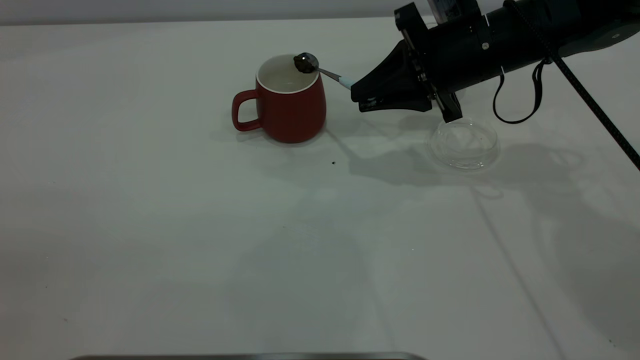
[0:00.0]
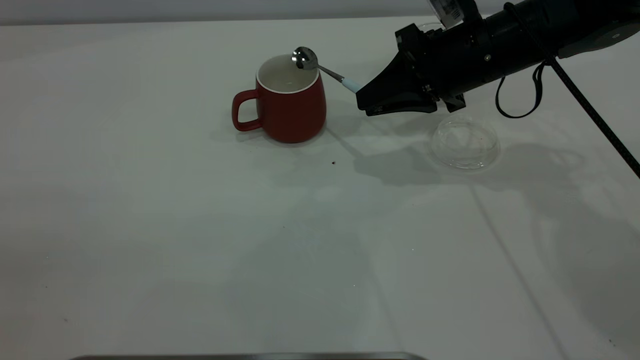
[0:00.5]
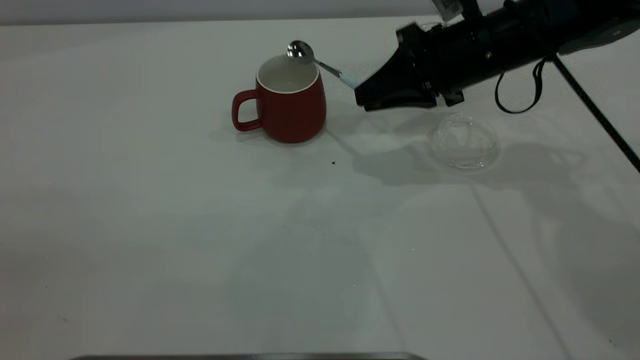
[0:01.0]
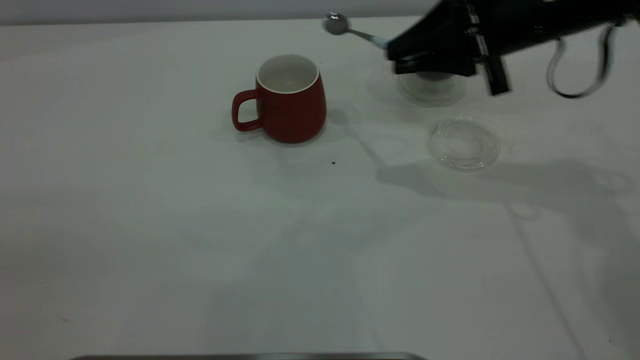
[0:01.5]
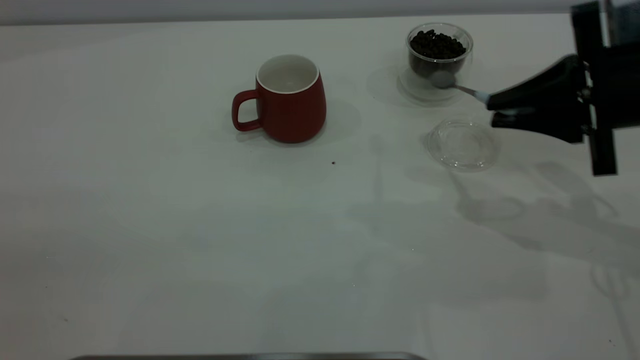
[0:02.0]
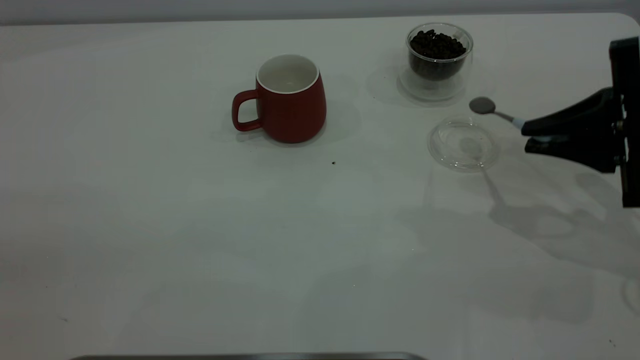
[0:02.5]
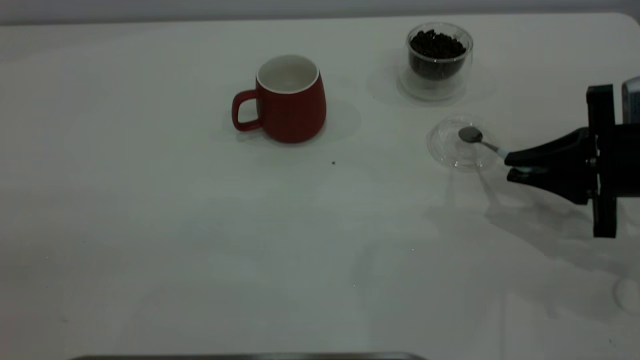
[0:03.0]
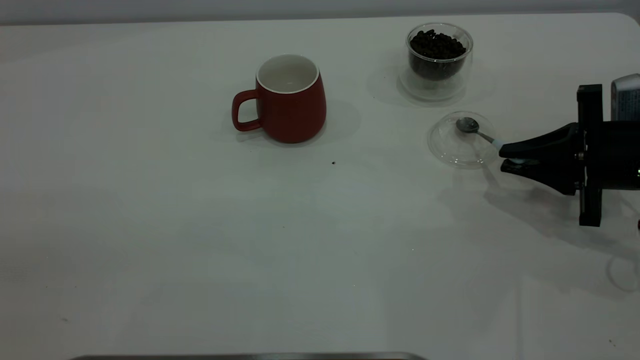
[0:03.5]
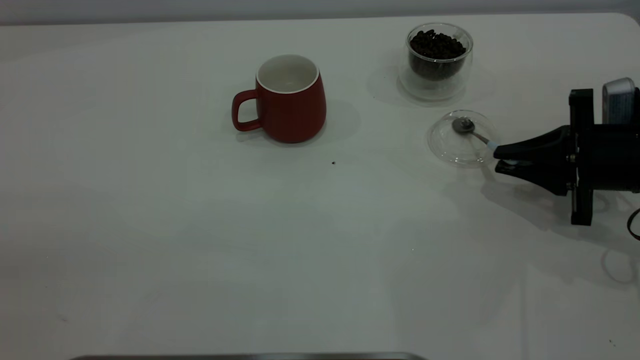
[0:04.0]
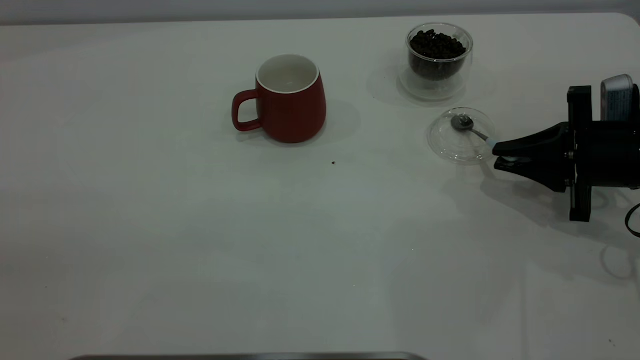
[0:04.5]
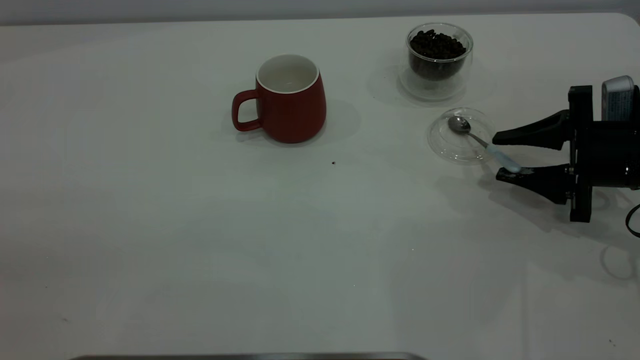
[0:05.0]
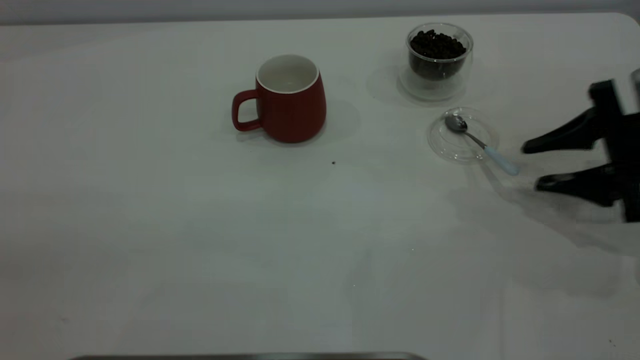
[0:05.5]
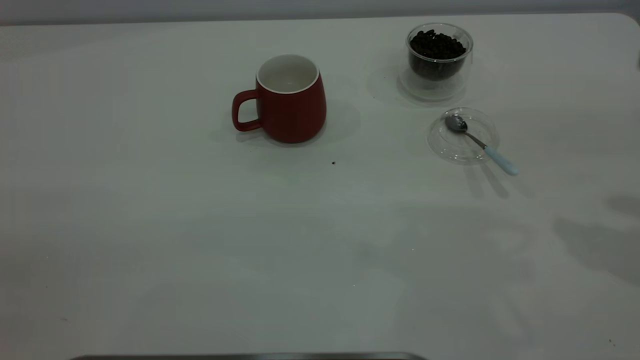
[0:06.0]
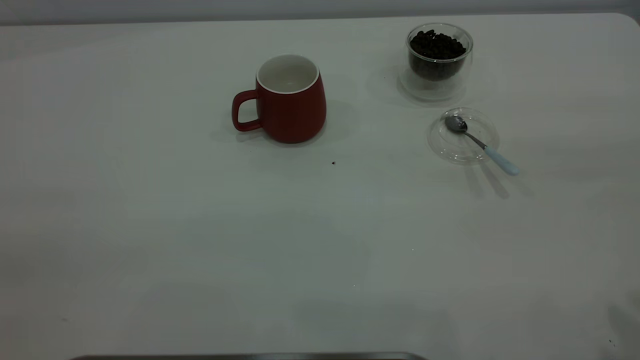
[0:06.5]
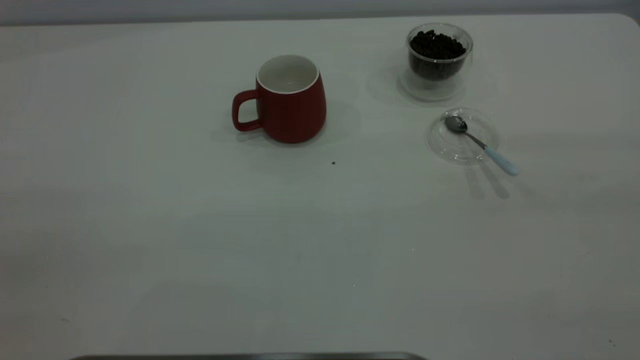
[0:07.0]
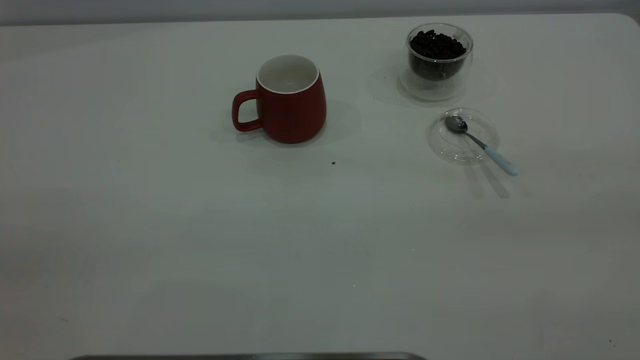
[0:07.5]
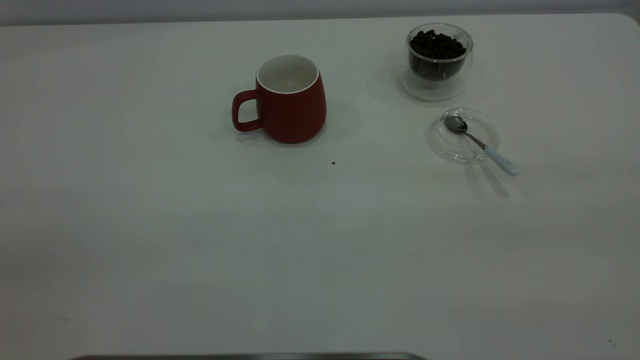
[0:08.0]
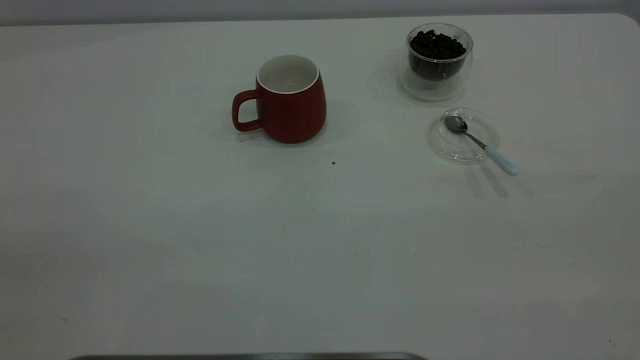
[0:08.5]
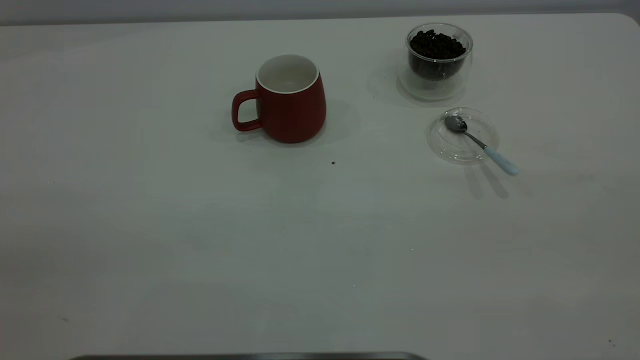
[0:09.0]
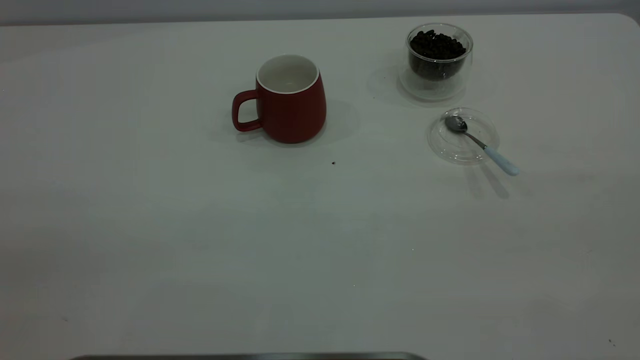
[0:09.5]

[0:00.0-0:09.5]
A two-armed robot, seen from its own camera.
Task of the whole recording: the left gripper place the red cup in the center of the table, the right gripper take the blue spoon from the cup lid and scoop out the coffee beans from the coffee cup and put them into the red cup, the right gripper put the spoon back into the cup lid.
Step, 0:01.5 to 0:05.0: Place the spoon back in its original place.
0:00.0 to 0:02.0: The right gripper moves to the right and backward, approximately 15 cm.
0:02.0 to 0:04.0: The right gripper goes approximately 10 cm downward.
0:04.0 to 0:05.5: The right gripper moves approximately 5 cm, and opens up.
0:05.5 to 0:07.5: The right gripper travels upward and backward by approximately 40 cm.
